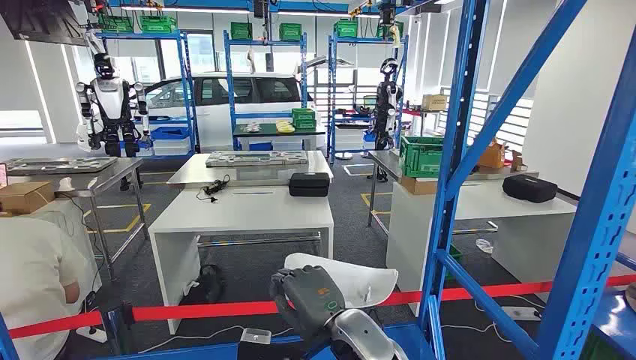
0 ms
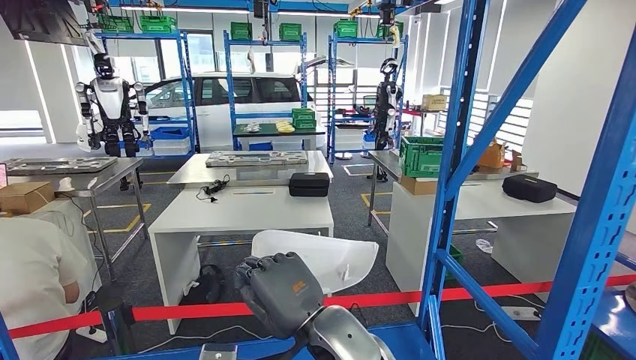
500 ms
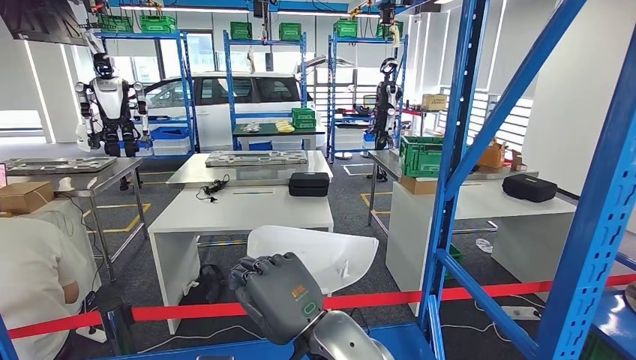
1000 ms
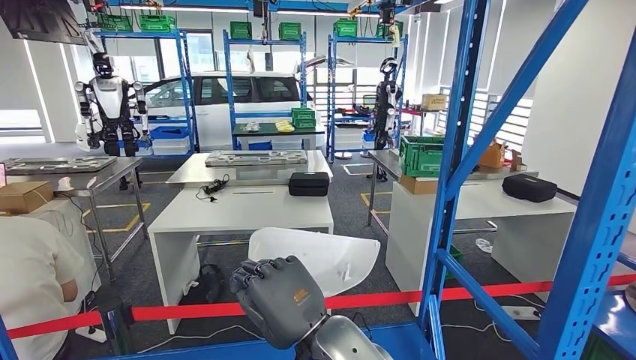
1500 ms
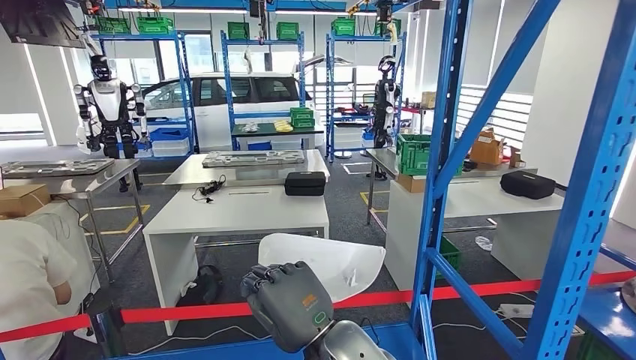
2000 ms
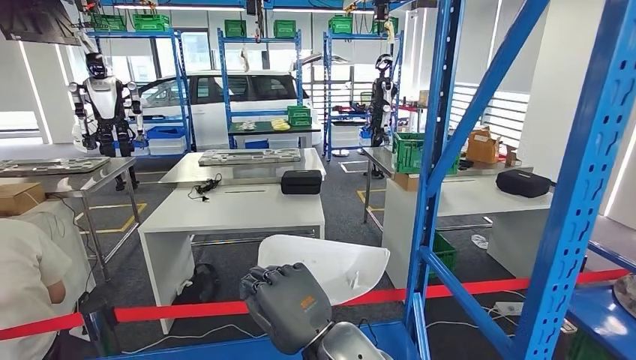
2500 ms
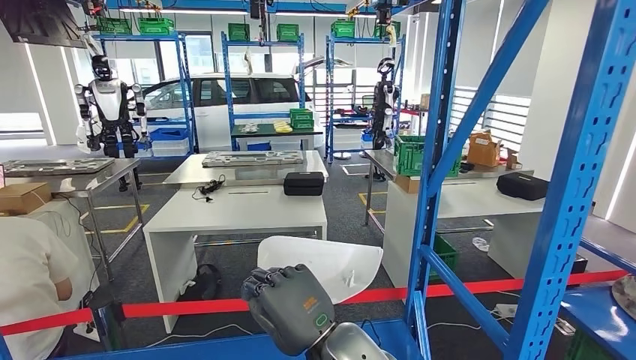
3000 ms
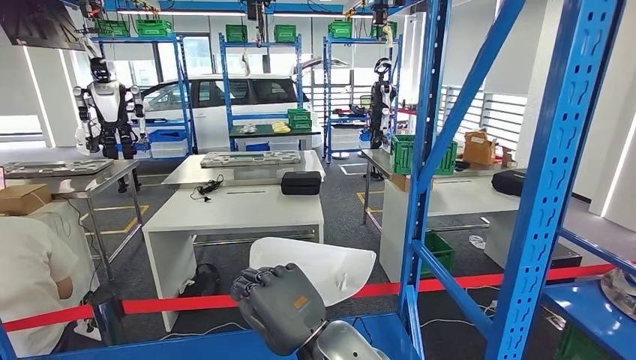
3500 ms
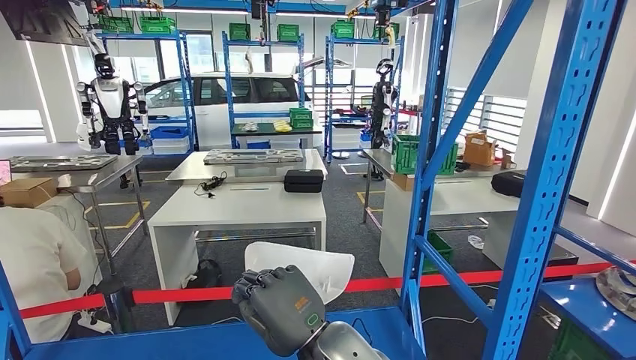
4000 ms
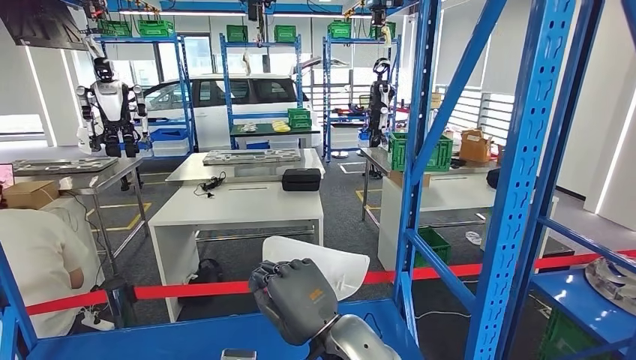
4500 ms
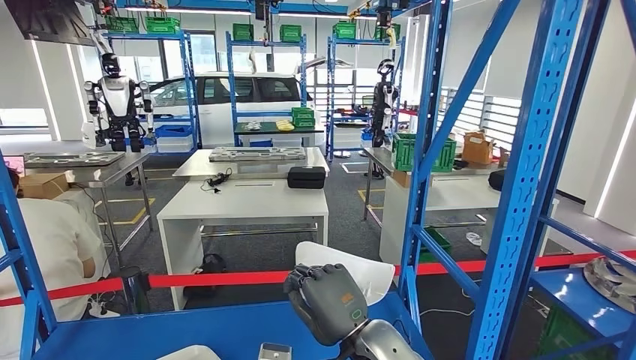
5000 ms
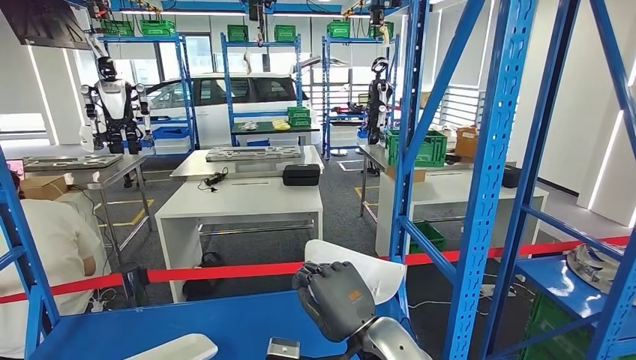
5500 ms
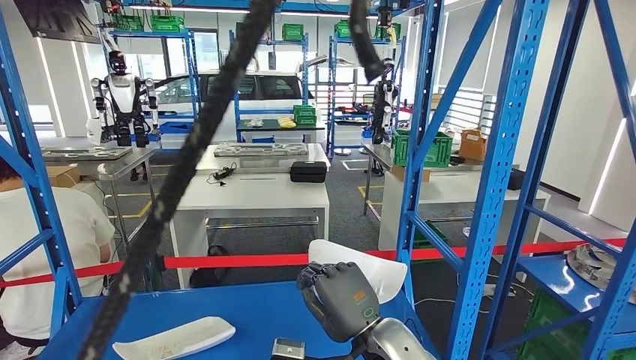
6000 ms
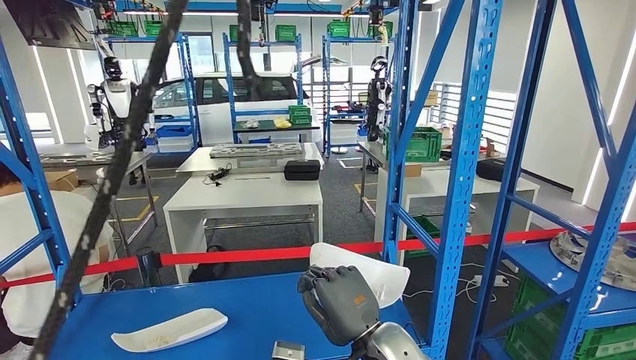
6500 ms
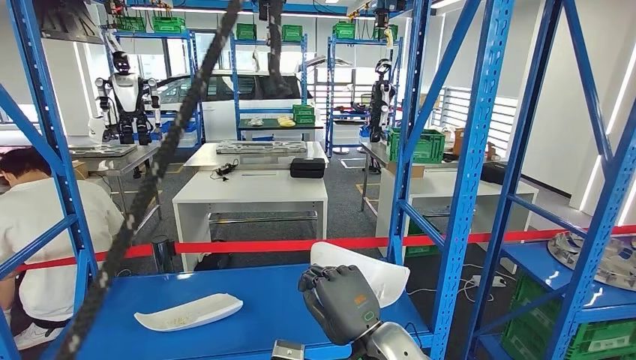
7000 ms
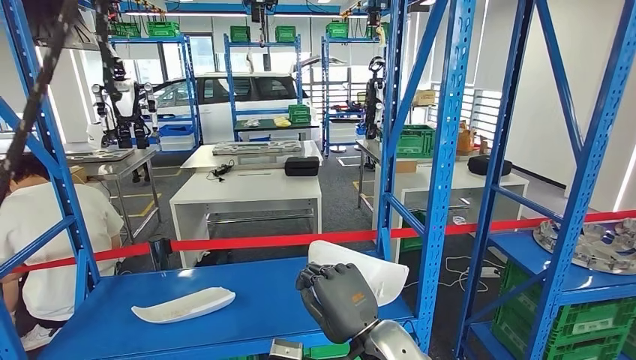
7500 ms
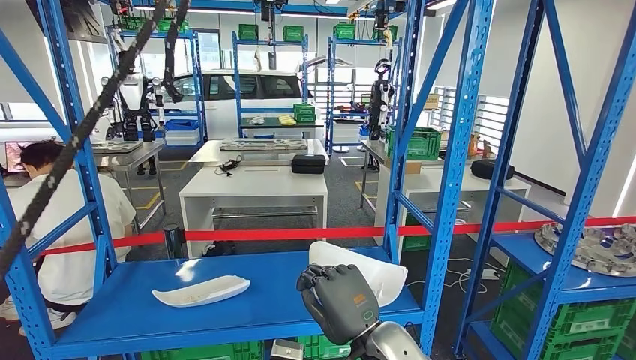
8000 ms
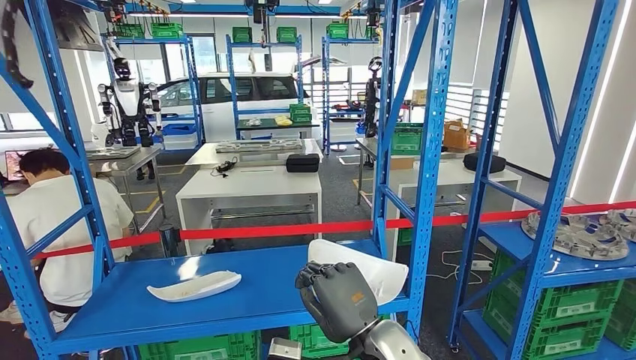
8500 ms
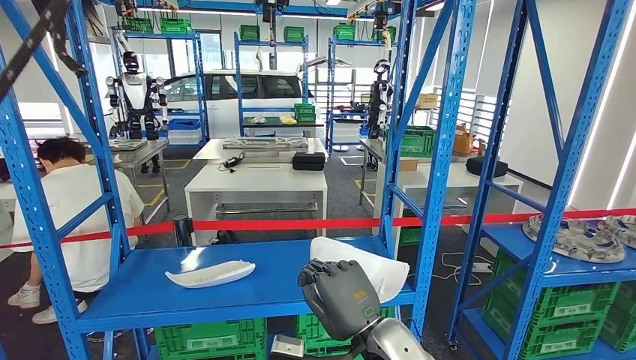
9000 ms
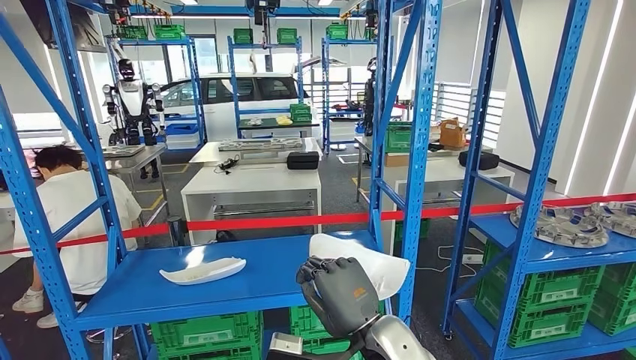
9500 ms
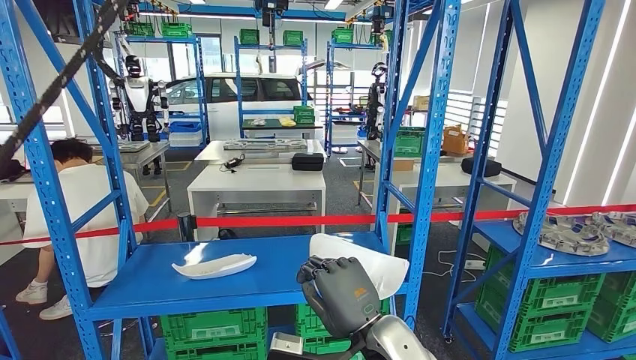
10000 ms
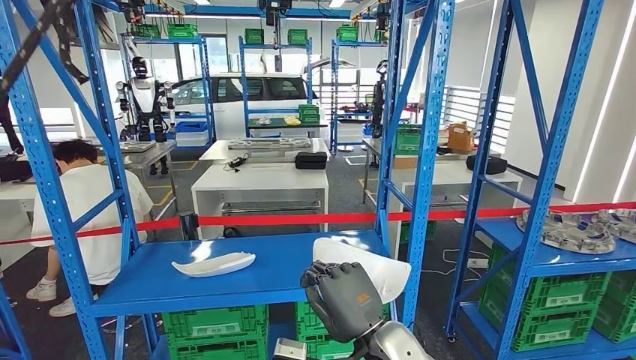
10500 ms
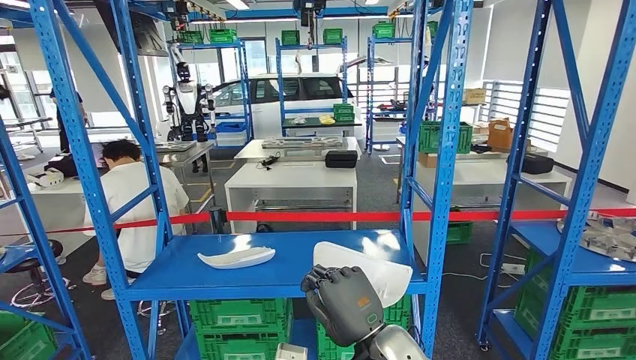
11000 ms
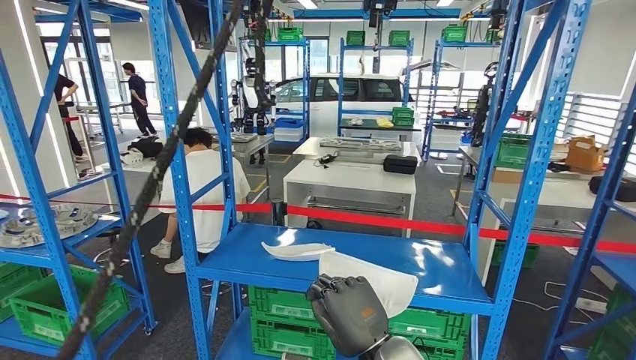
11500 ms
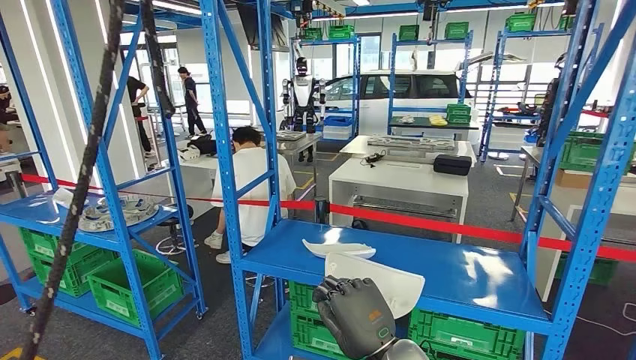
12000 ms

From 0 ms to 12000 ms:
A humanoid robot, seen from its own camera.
Step, from 0 ms to 500 ms: Pick up the small component from the shelf.

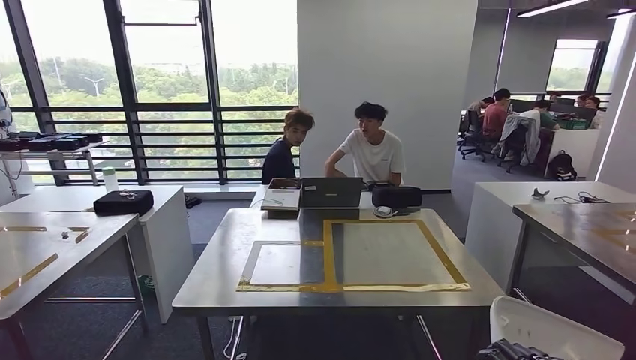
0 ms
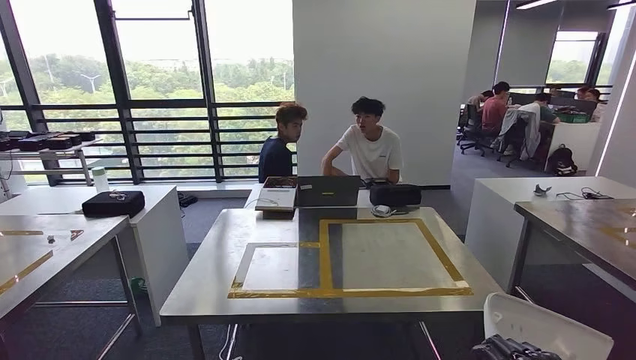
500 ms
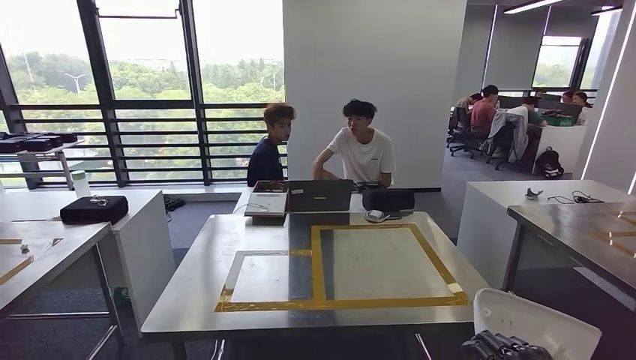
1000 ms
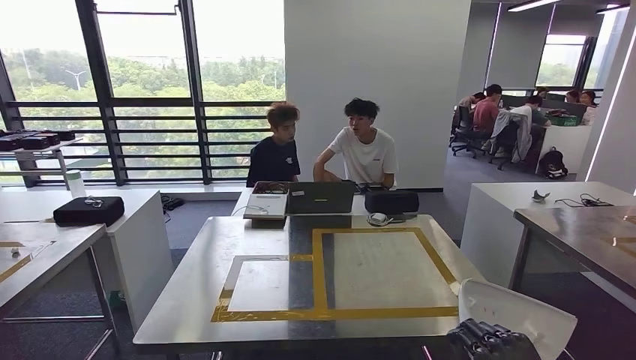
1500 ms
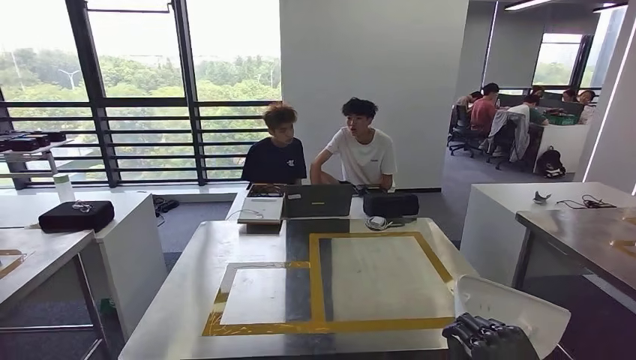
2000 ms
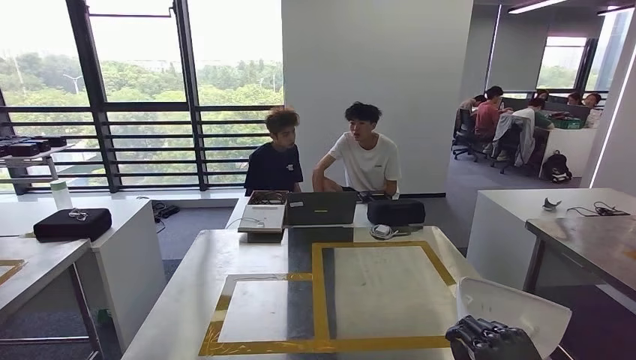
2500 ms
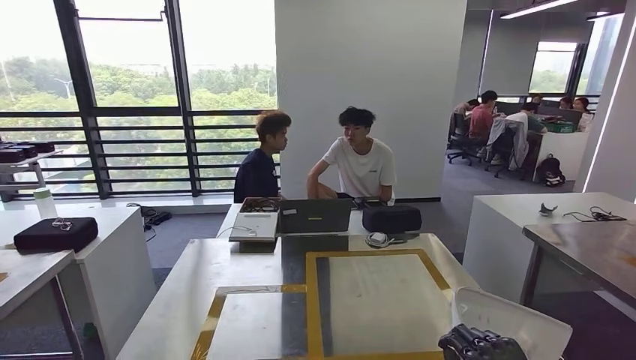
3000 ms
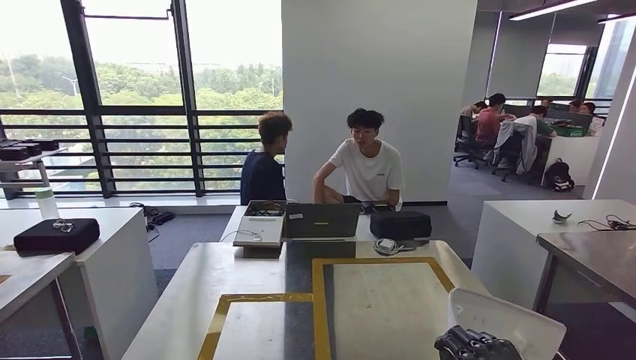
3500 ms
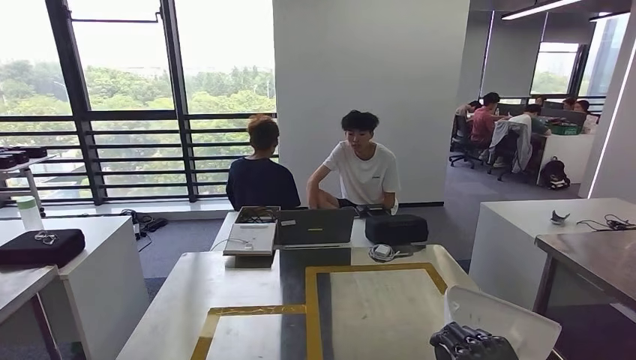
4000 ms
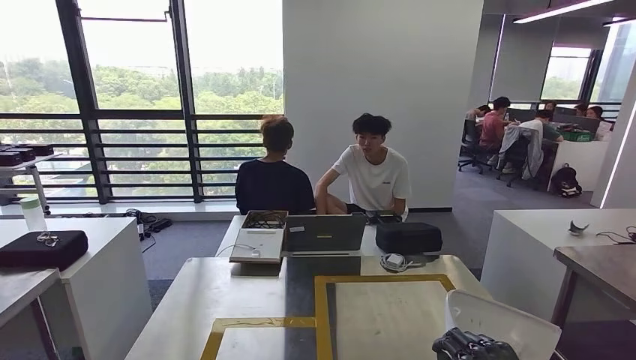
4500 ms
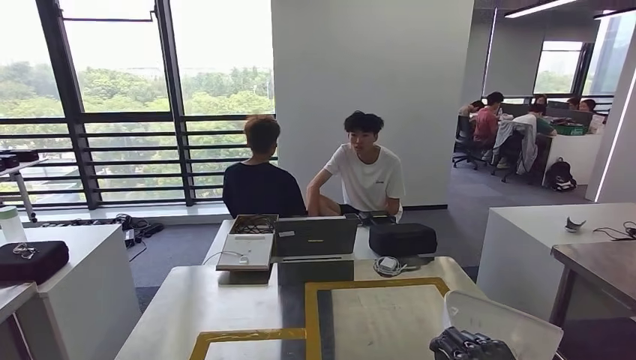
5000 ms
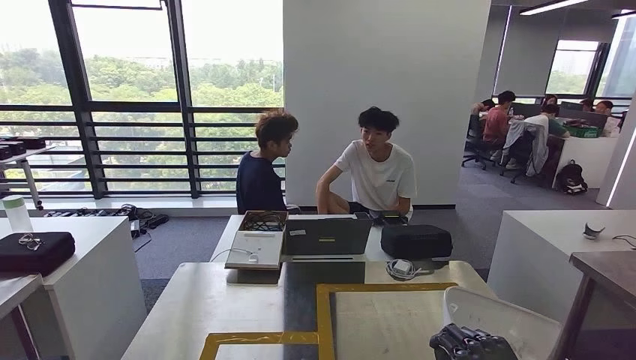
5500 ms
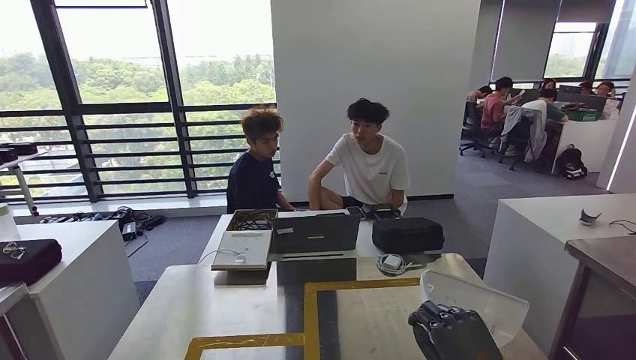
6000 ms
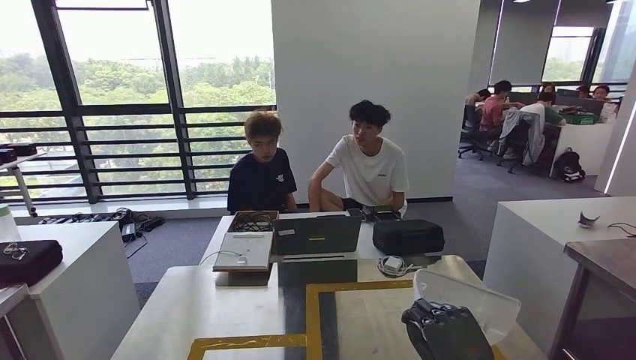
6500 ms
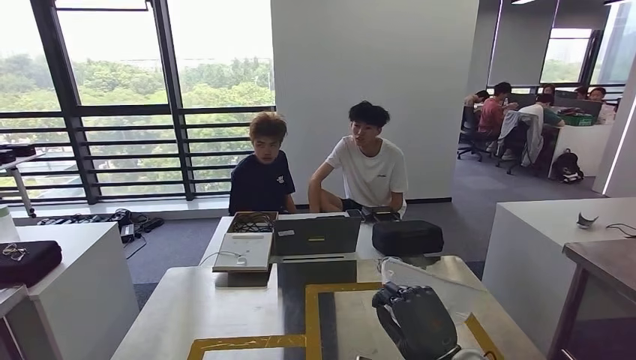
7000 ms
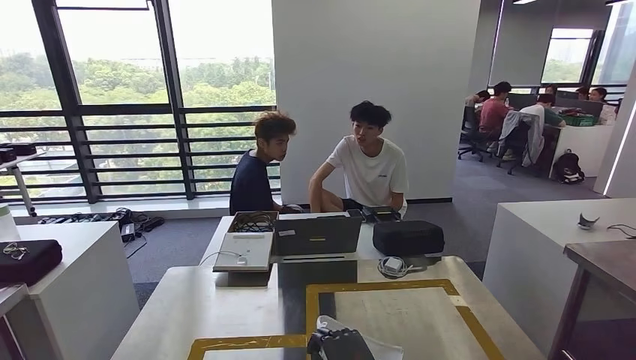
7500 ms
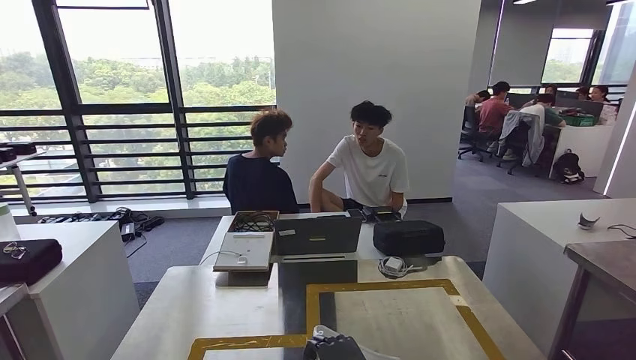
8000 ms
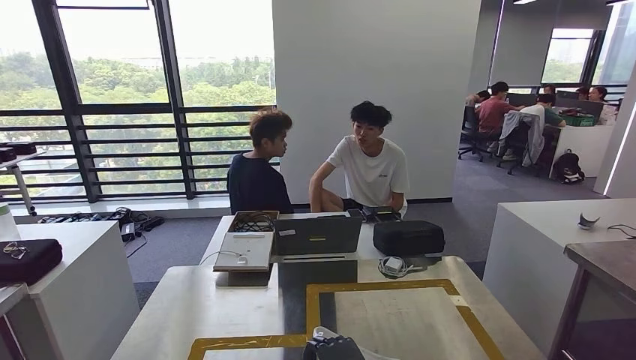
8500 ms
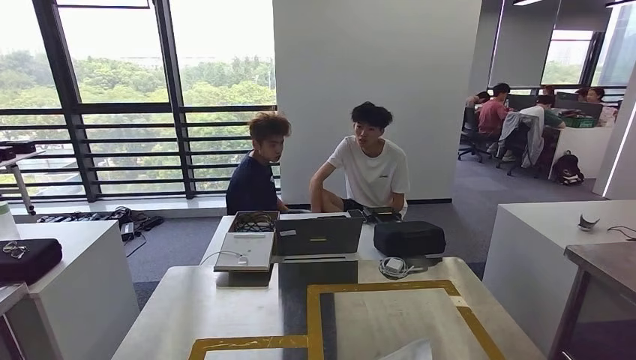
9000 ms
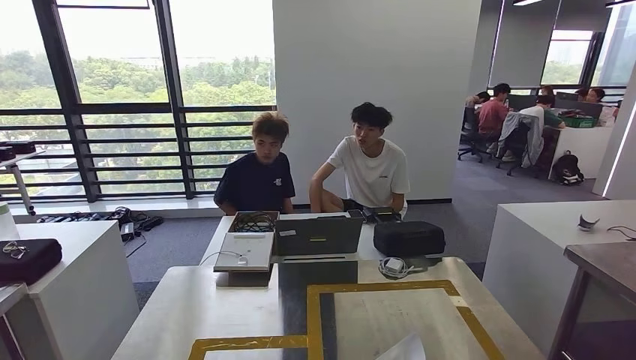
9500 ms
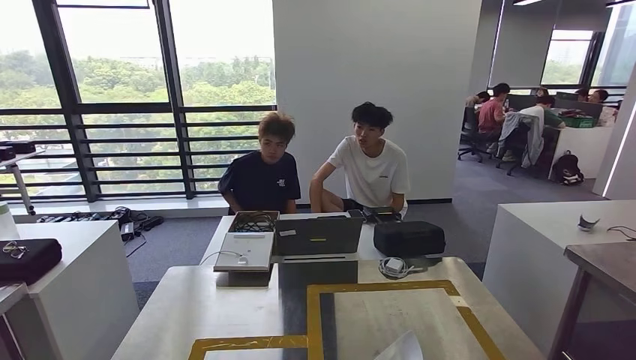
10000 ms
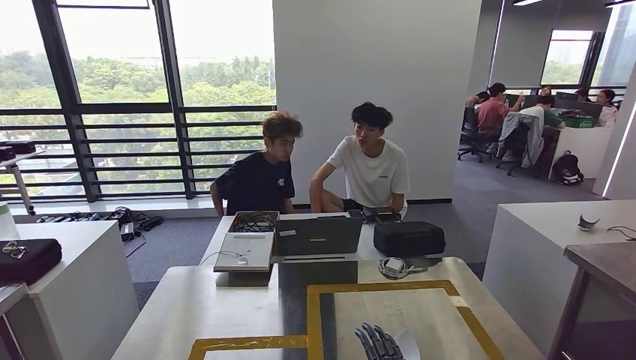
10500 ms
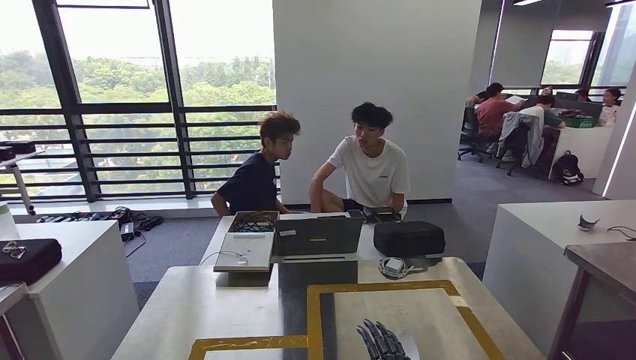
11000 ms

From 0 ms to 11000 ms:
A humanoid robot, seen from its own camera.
Step, from 0 ms to 2000 ms: Move the small component to the workbench.
Step, from 3000 ms to 10000 ms: Insert the small component into the corresponding slot on the workbench.
From 7500 ms to 9000 ms: The right hand shifts about 15 cm downward and backward.
From 9000 ms to 11000 ms: The right hand is displaced upward by about 5 cm.
